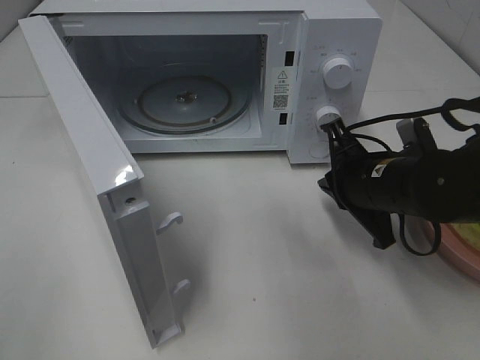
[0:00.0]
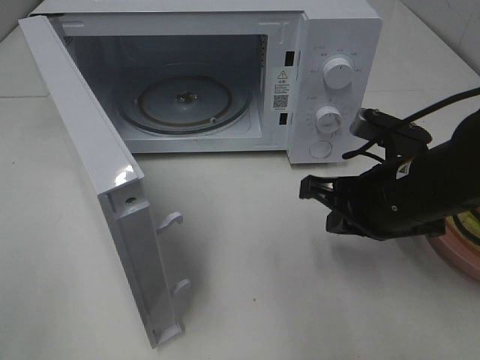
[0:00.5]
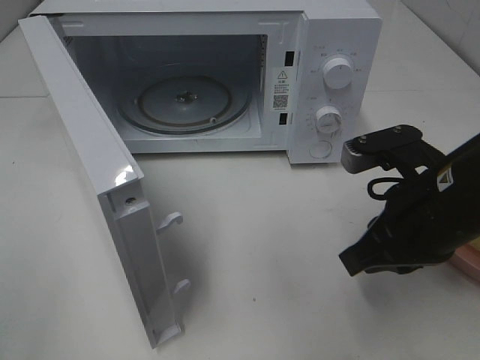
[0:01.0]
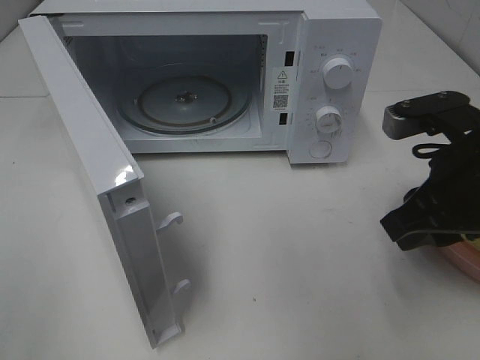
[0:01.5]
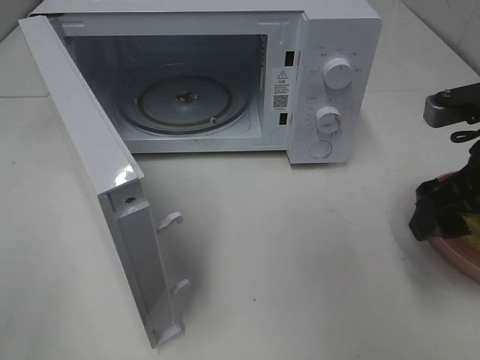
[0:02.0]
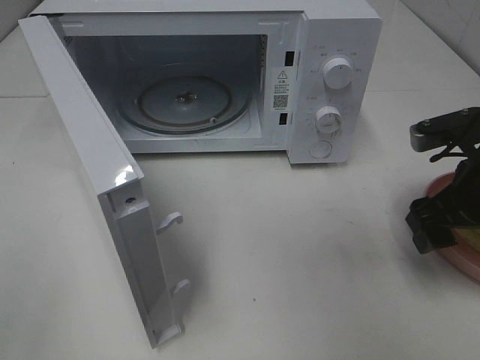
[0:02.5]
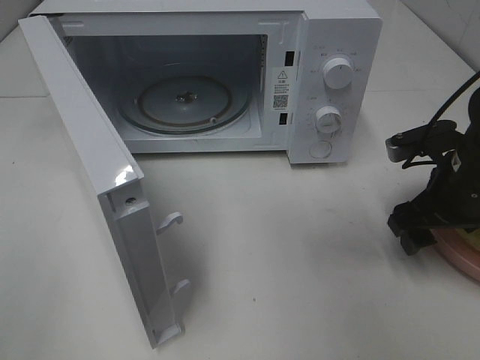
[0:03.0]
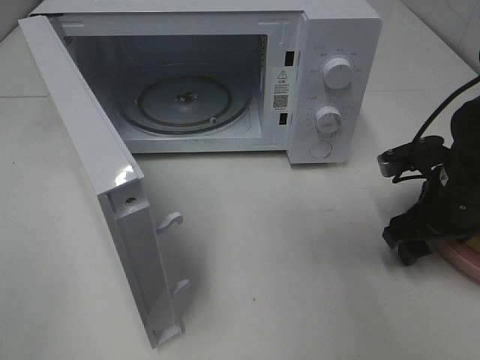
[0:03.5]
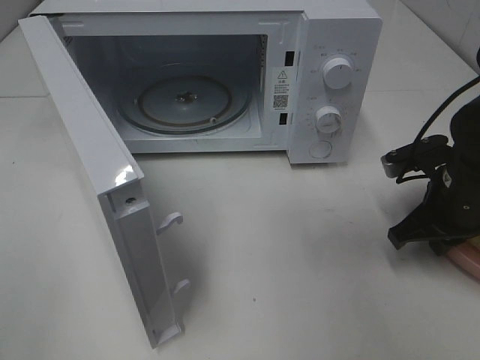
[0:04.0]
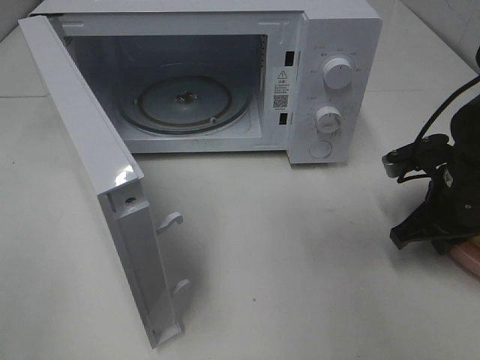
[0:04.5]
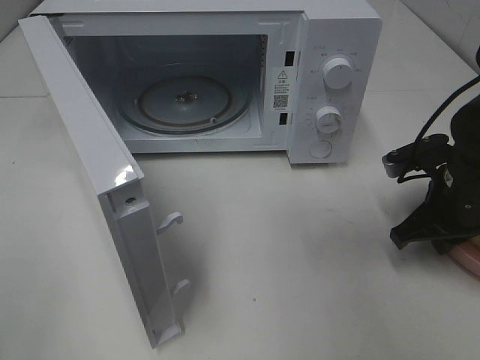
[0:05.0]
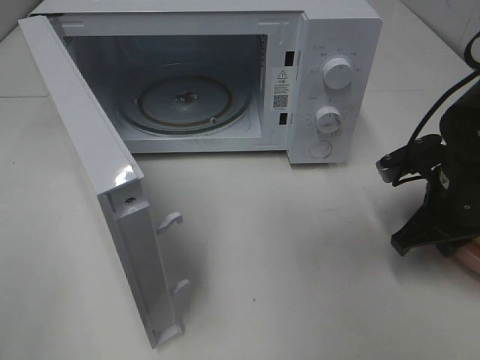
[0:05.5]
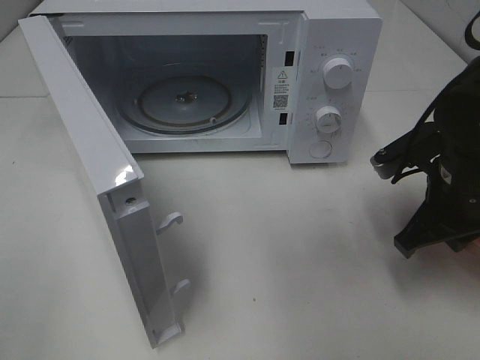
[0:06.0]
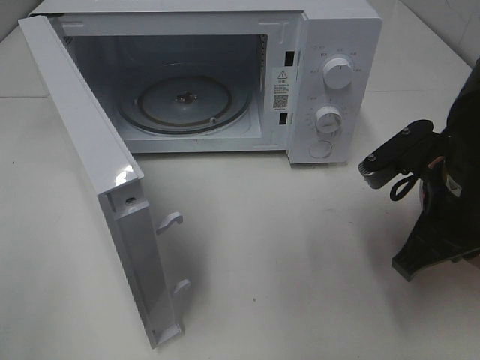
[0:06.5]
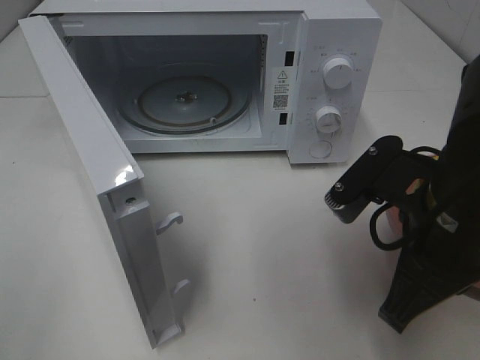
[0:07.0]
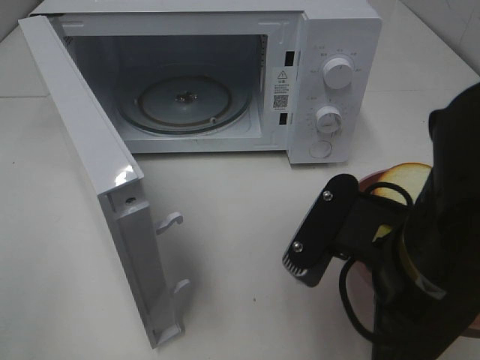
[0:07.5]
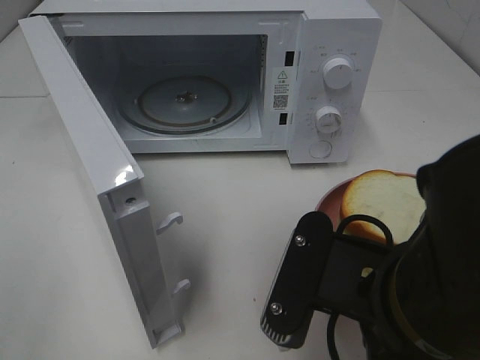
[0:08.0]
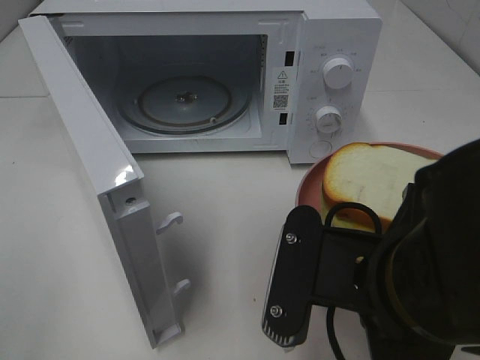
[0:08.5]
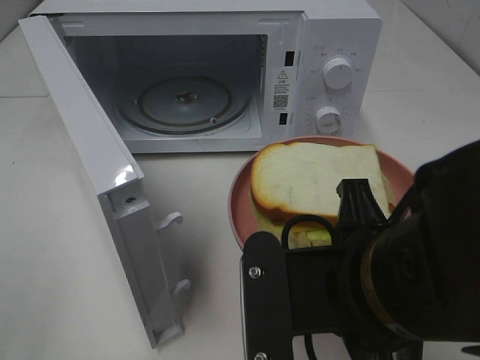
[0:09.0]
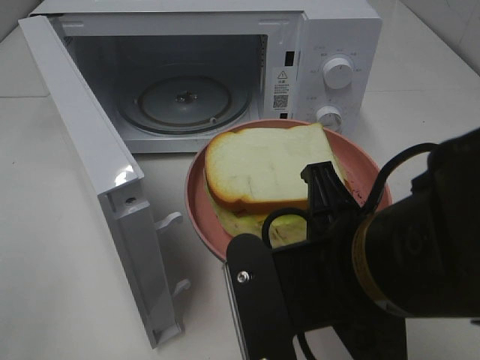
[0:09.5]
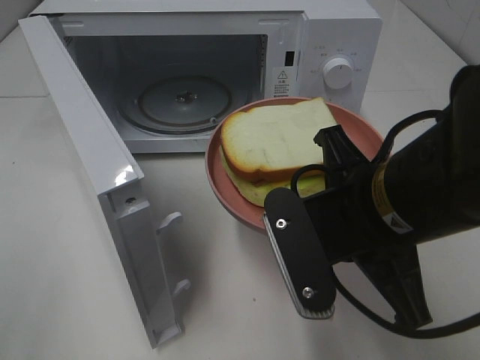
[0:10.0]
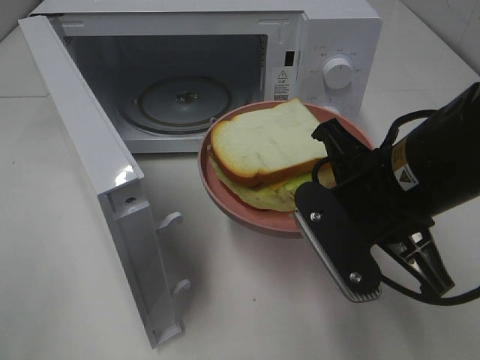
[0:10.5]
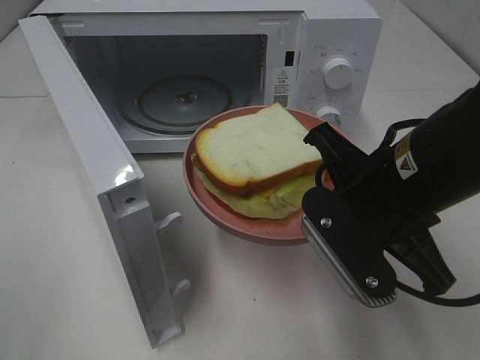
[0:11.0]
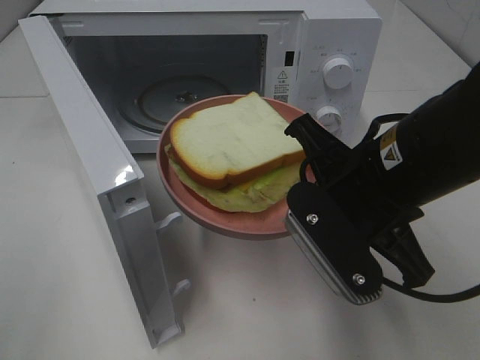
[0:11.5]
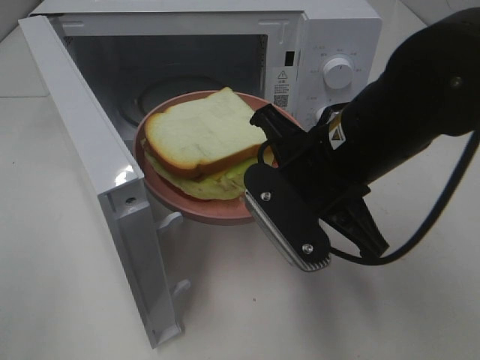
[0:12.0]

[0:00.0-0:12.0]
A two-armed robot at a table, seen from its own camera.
Task of the whole recording: Heat Sandwich.
Step, 0:00.0 to 0:03.5: Right hand: grab the plate with the sandwich.
0:00.0 to 0:02.0: The right gripper goes approximately 15 cm upward, to the right and backward, and opens.
0:02.0 to 0:04.0: The right gripper is displaced downward and forward by roughly 10 cm, and closes.
0:04.0 to 0:06.0: The right gripper changes place by roughly 5 cm.
0:06.0 to 0:08.0: The right gripper is displaced backward and to the left by about 20 cm.
0:08.0 to 0:10.0: The right gripper shifts some 5 cm forward.
0:10.0 to 0:12.0: The right gripper travels forward by approximately 5 cm.

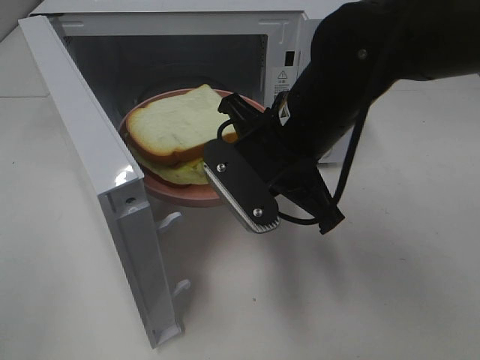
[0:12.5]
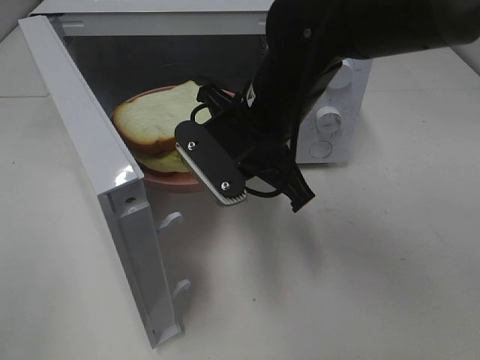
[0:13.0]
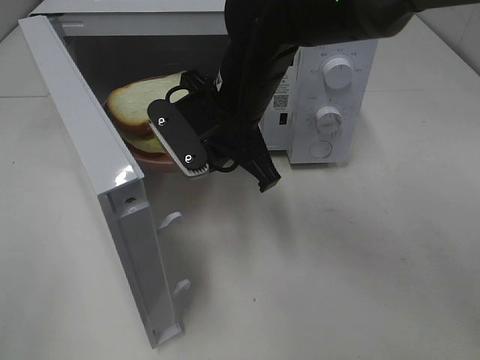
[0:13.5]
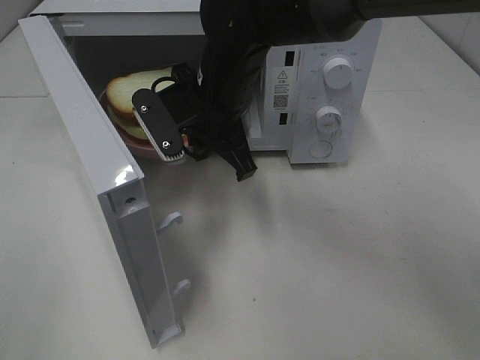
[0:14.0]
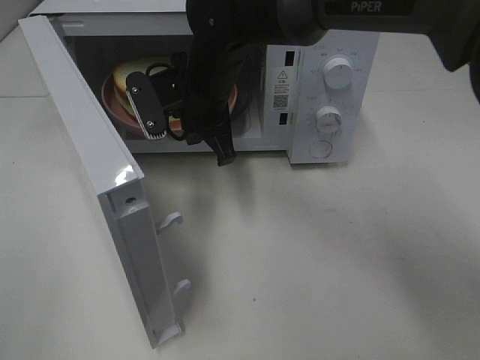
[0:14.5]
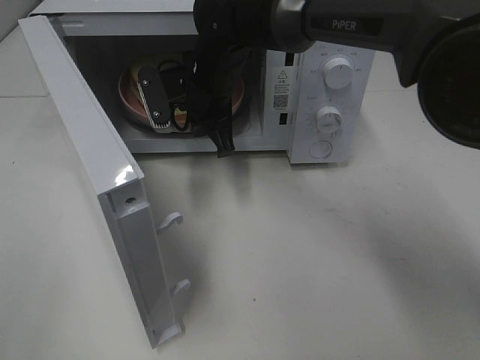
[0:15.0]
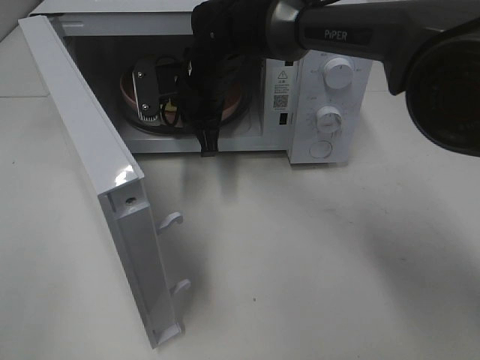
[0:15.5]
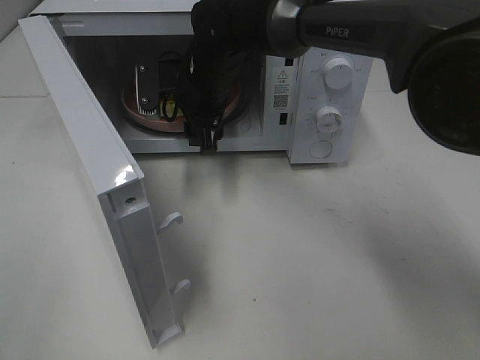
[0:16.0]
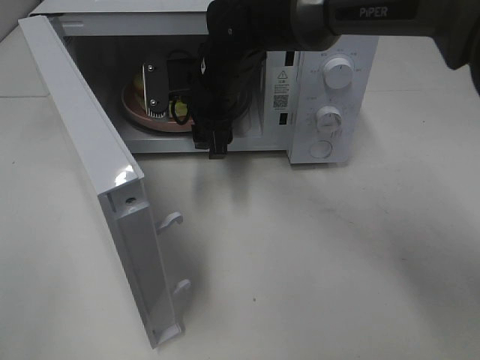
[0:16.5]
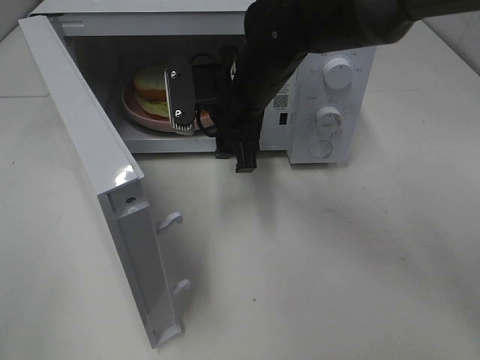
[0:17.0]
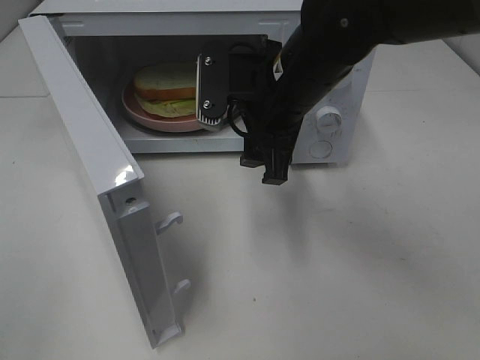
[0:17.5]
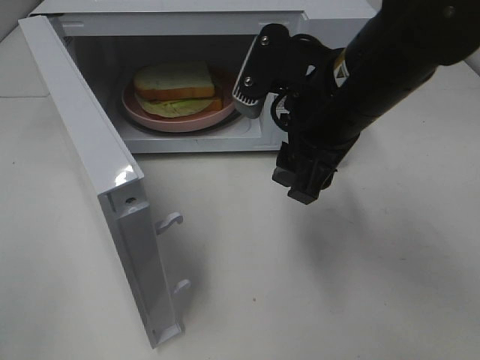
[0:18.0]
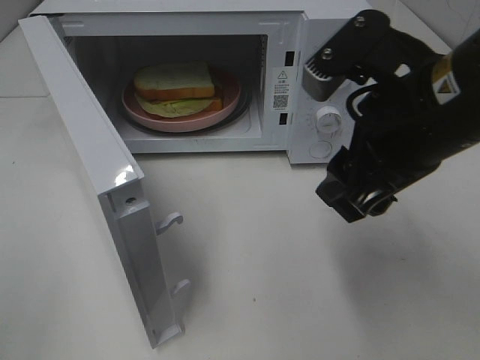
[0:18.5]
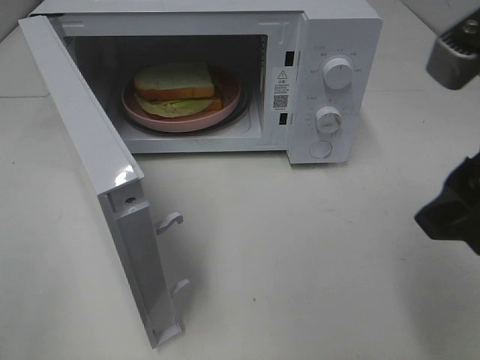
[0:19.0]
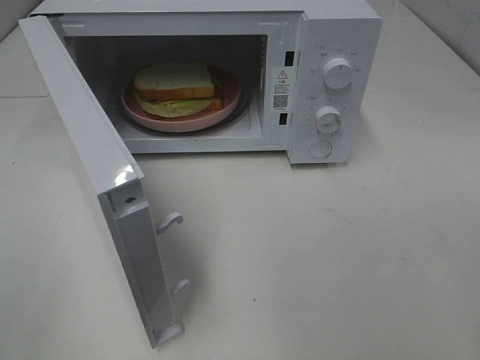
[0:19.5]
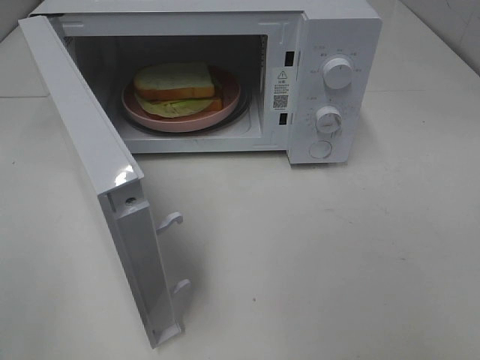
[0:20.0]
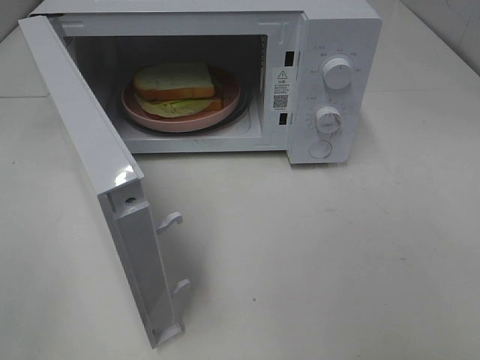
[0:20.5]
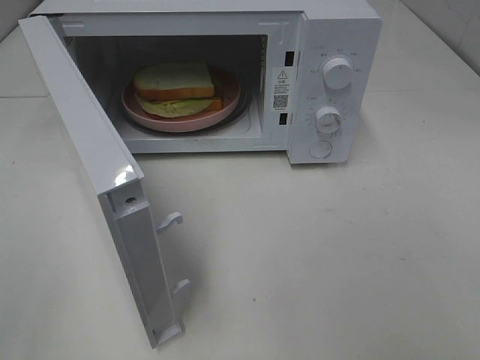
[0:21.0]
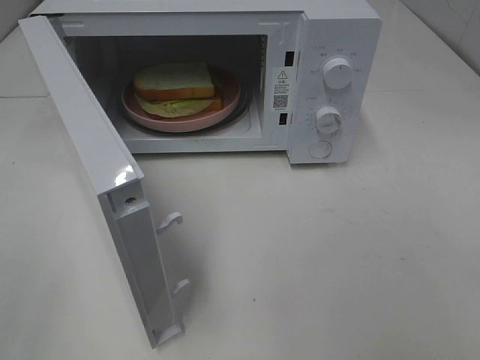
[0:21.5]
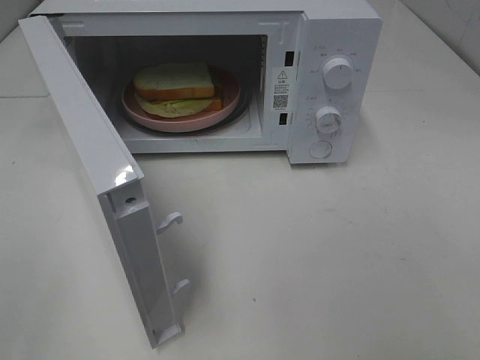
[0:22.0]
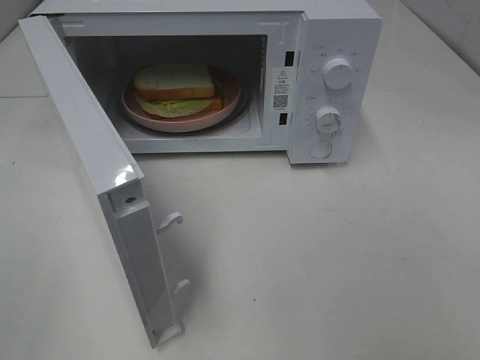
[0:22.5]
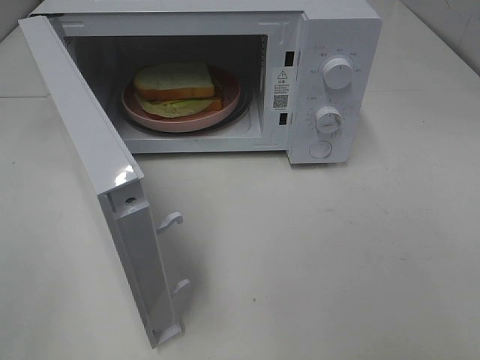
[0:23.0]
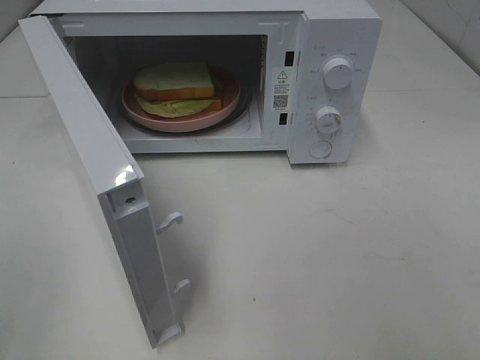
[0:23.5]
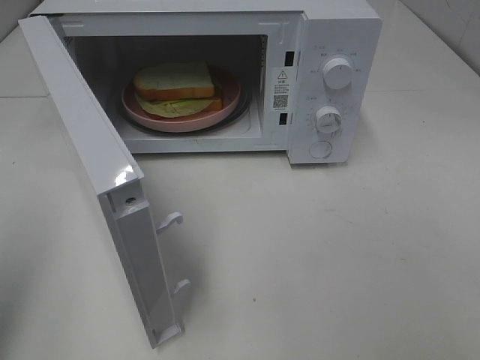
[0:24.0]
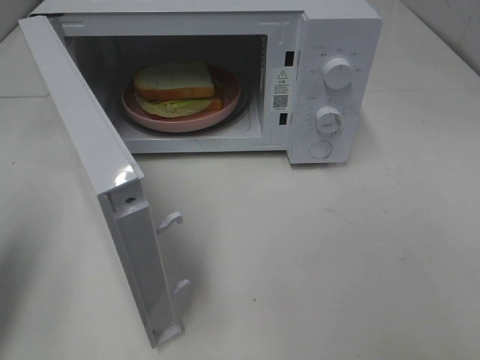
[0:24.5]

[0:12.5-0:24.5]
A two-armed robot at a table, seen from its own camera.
Task of the whole recording: Heat Sandwich.
Step, 0:12.5 to 0:16.5: Right hand: place the plate in the microwave.
0:12.5 to 0:14.5: The right gripper travels forward and to the left by approximately 15 cm.
0:14.5 to 0:16.5: The right gripper opens up.
0:16.5 to 0:18.5: The right gripper heads backward, to the right and upward, covering about 25 cm.
0:18.5 to 0:20.5: The right gripper is displaced backward and to the right by about 25 cm.
0:22.5 to 0:24.5: The left gripper is displaced forward by approximately 15 cm, and closes.

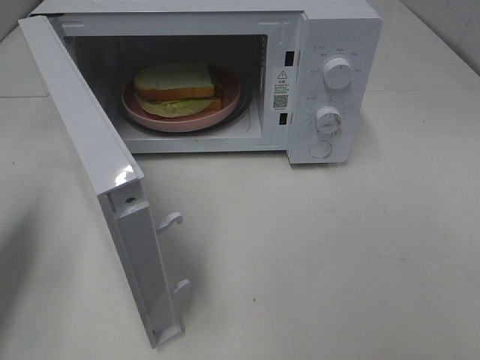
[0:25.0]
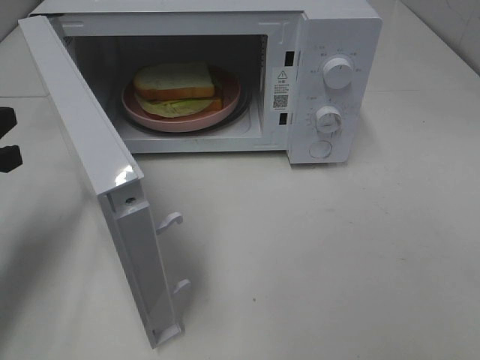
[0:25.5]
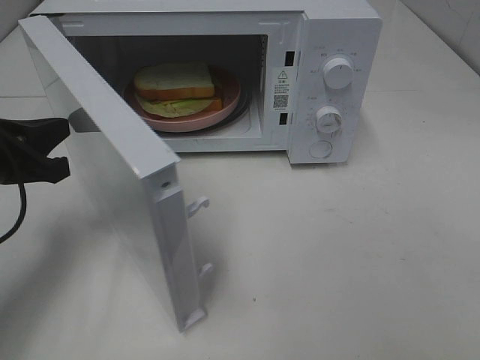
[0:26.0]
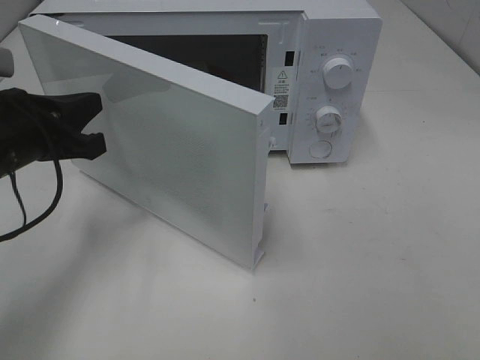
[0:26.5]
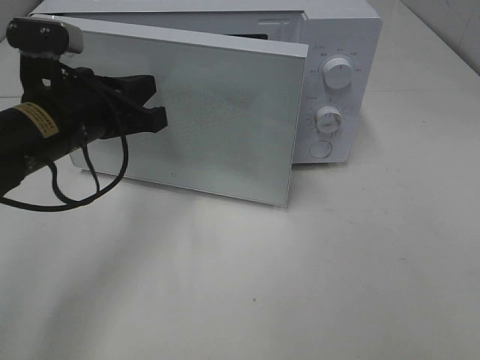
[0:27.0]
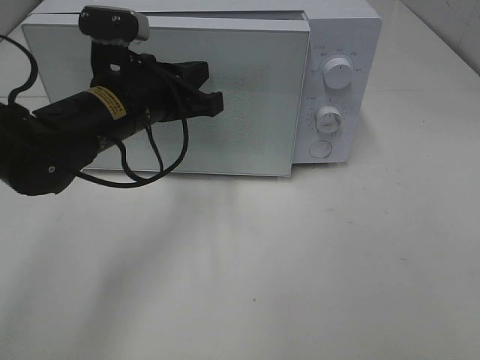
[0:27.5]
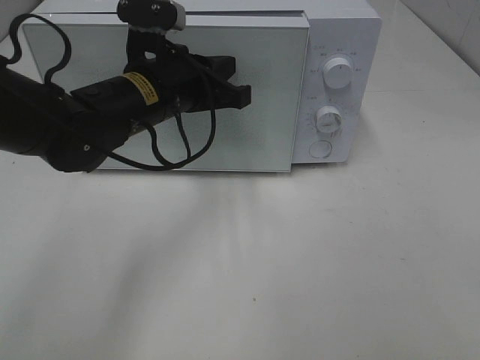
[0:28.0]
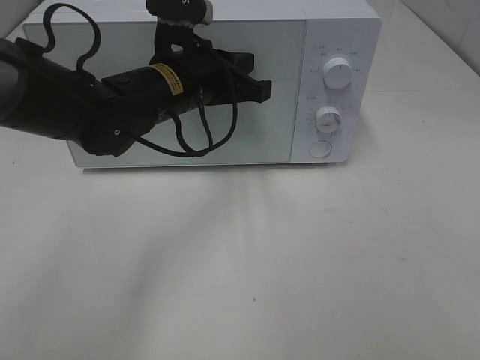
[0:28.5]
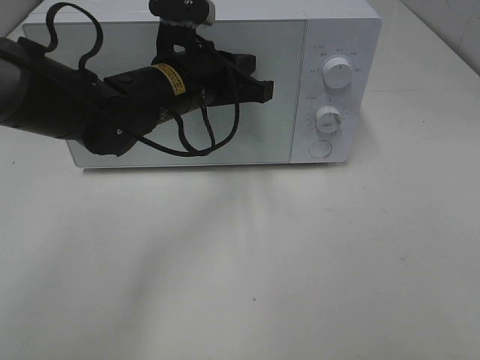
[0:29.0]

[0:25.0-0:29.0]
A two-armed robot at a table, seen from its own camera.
Task of the whole recording: Heat Sandwich.
0:25.0 to 0:27.0: The left gripper moves to the right and forward, roughly 20 cm.
0:27.0 to 0:29.0: The left gripper is displaced to the right and forward by approximately 10 cm.
